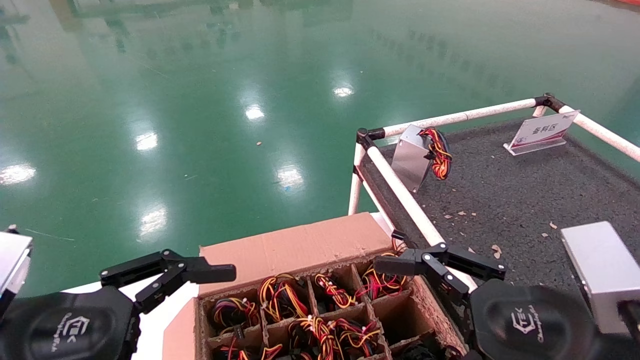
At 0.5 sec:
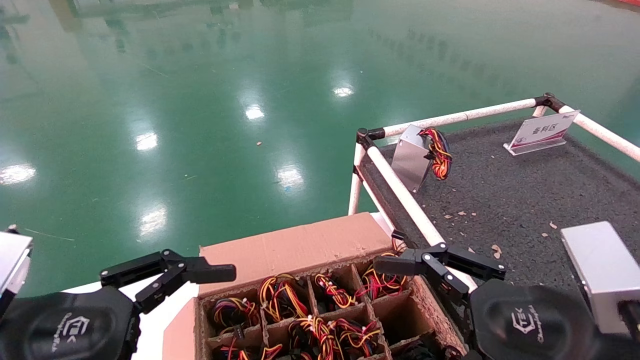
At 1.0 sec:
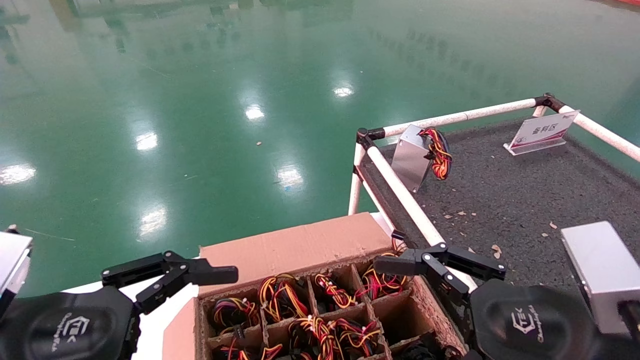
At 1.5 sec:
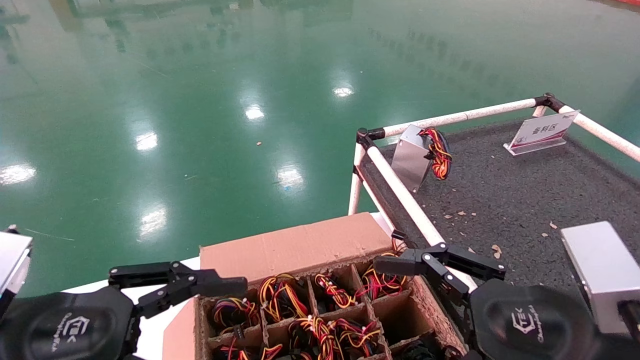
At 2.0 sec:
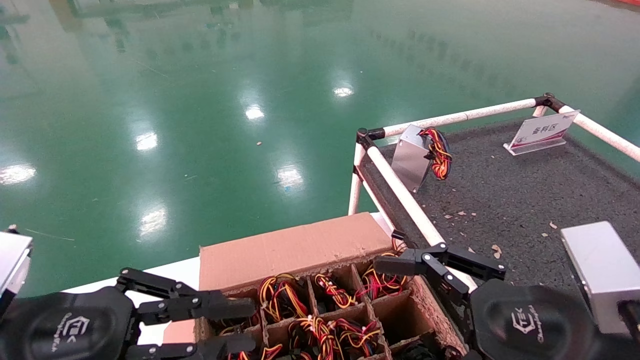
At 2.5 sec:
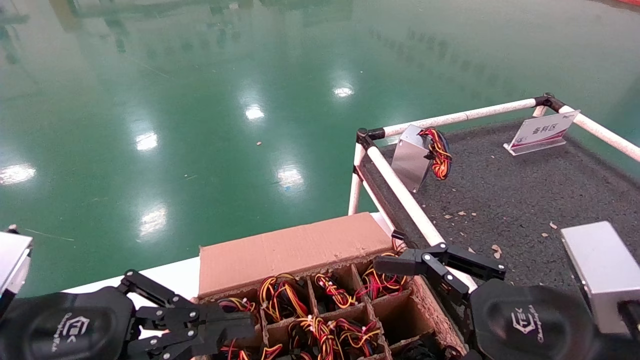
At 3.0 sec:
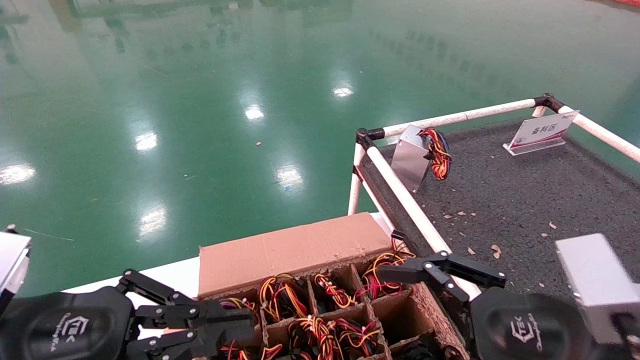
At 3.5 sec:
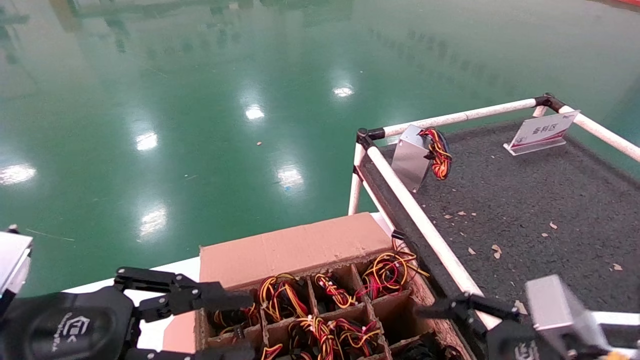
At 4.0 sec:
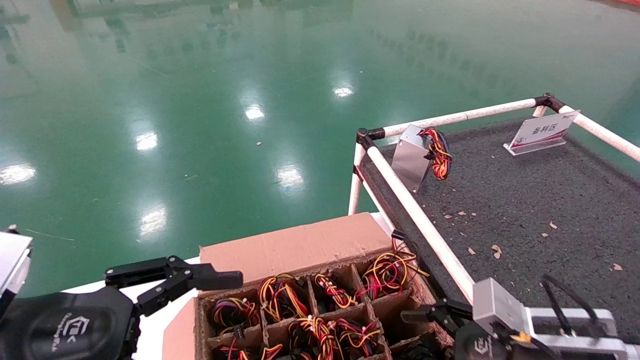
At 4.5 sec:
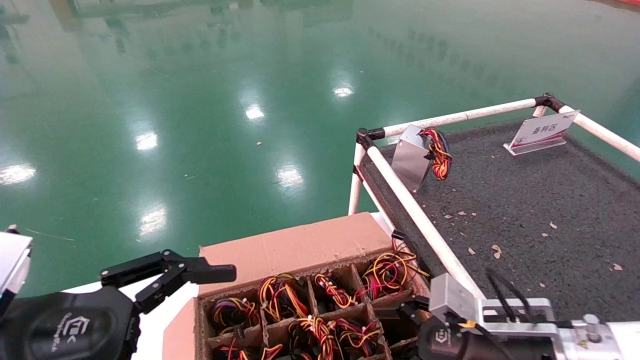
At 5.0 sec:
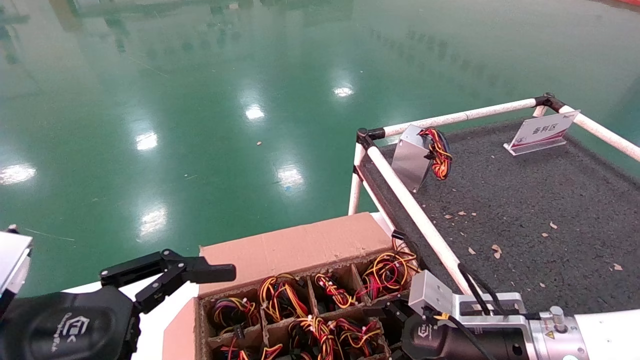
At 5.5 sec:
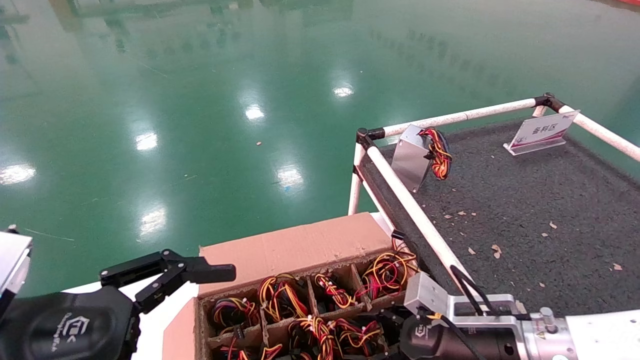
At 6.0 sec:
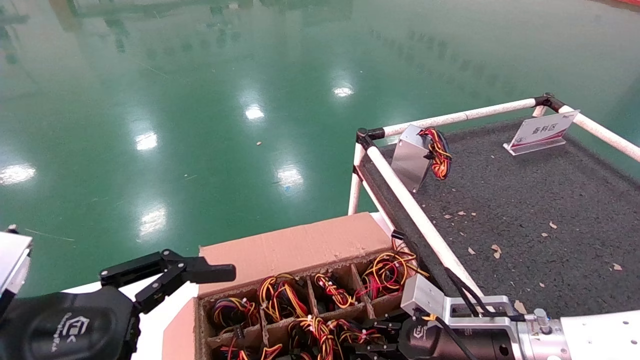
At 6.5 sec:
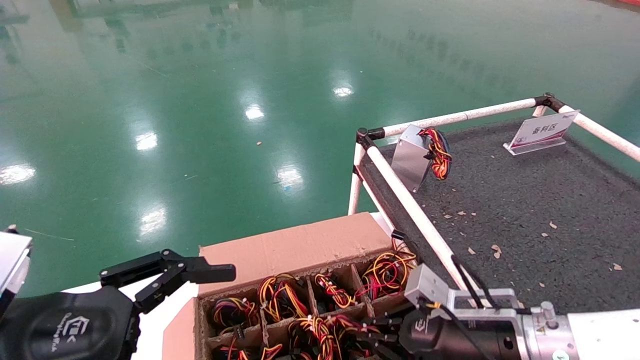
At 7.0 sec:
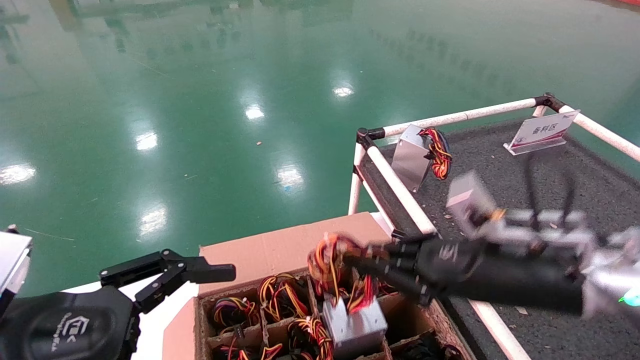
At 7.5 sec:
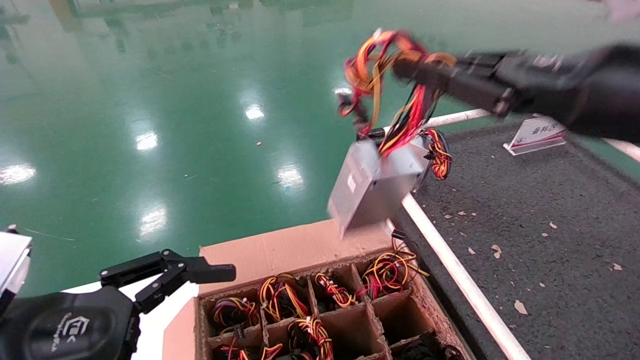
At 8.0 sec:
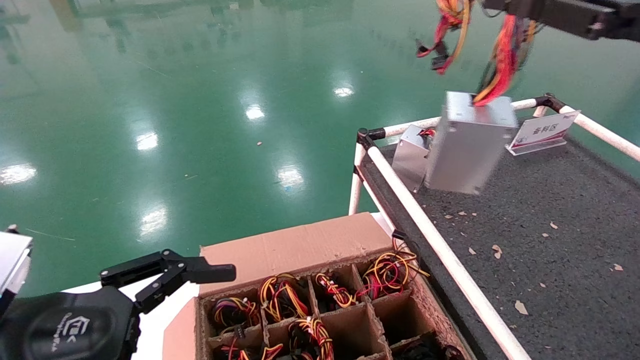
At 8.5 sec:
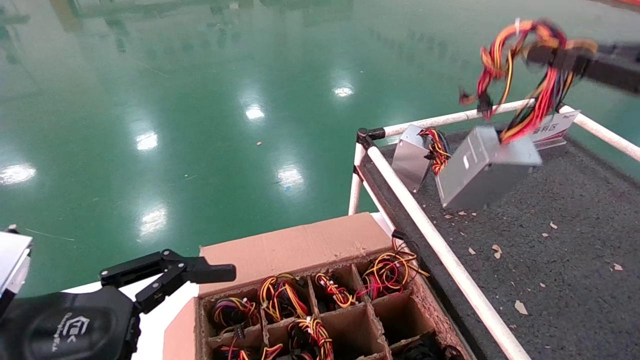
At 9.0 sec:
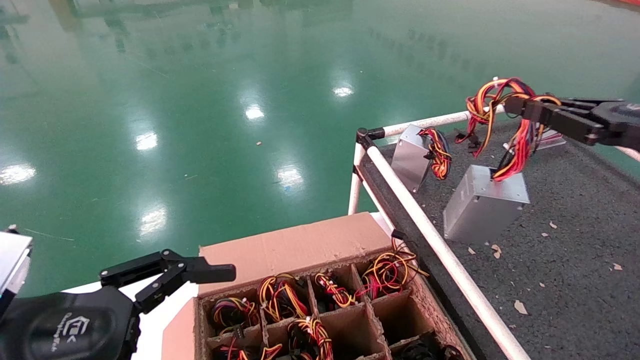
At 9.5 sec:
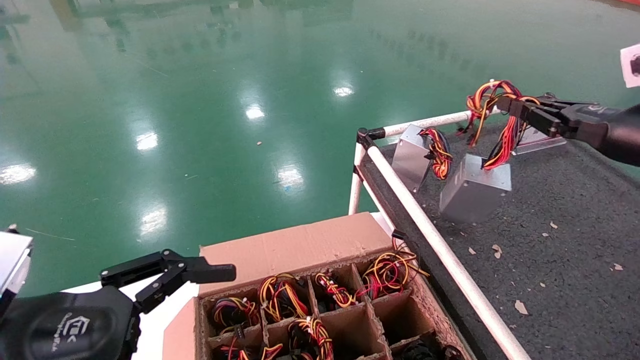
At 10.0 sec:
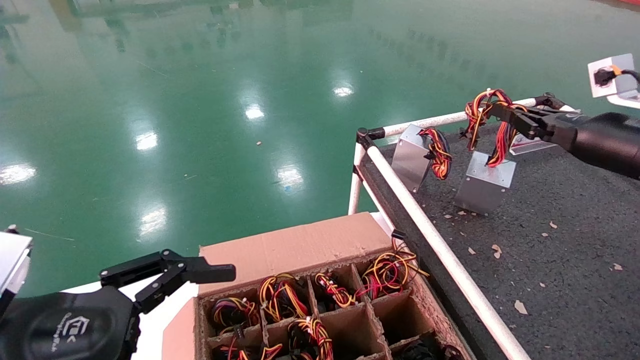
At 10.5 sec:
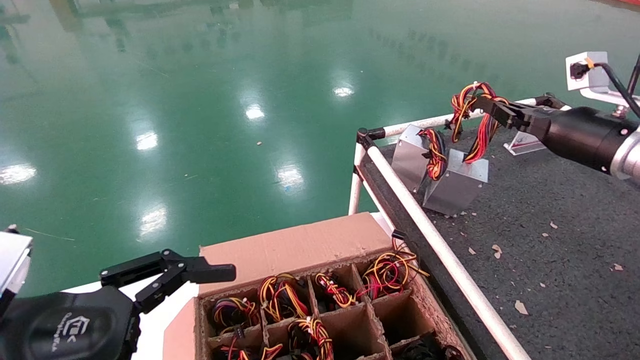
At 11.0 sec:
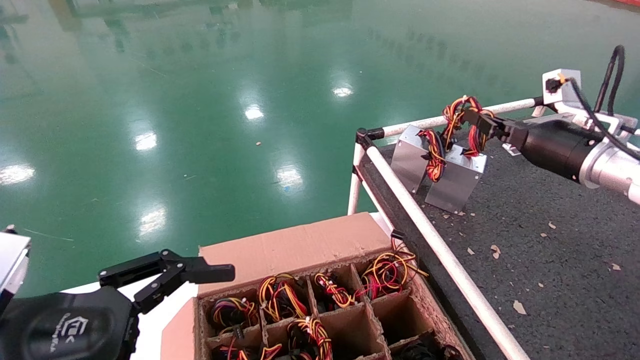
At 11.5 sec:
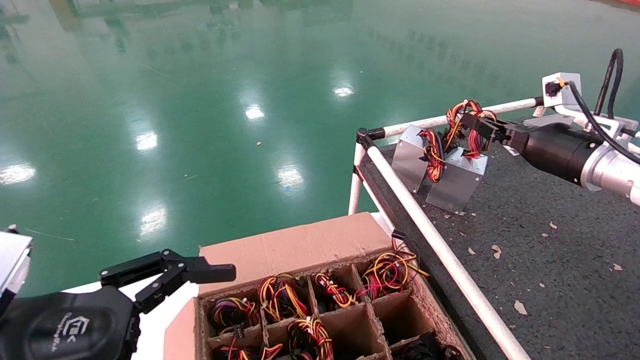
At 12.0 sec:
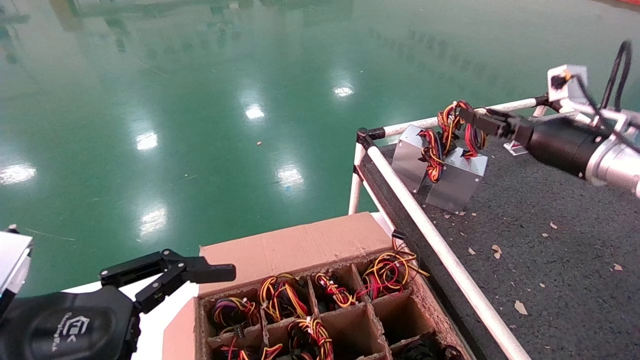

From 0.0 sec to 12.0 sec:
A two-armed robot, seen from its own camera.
Step, from 3.5 sec to 6.0 sec: Grab and lift the power supply from the large box.
Step, from 6.5 sec to 11.5 sec: Place the power supply on the operating table.
From 0.0 sec to 2.0 sec: The left gripper closes up.
From 2.0 sec to 4.0 sec: The right gripper heads downward and forward, covering approximately 10 cm. The left gripper opens.
From 4.0 sec to 6.0 sec: The right gripper is displaced forward by approximately 5 cm, and closes up.
From 6.0 sec to 8.0 sec: The right gripper heads upward, covering about 35 cm.
From 8.0 sec to 10.0 sec: The right gripper heads forward and downward, covering some 15 cm.
From 10.0 sec to 12.0 sec: The right gripper moves approximately 5 cm, and opens.

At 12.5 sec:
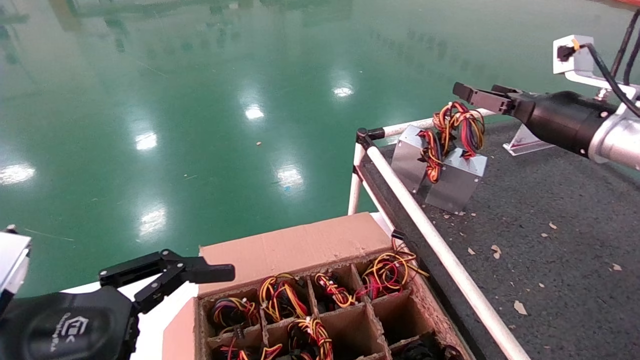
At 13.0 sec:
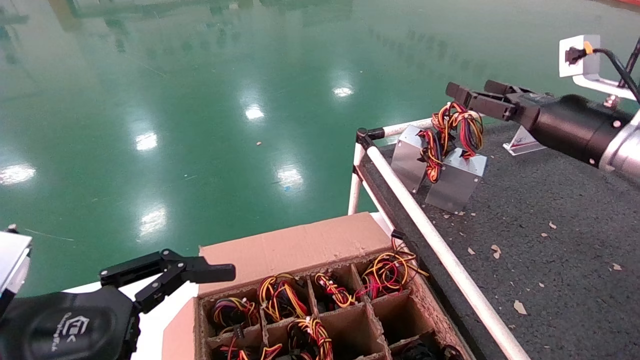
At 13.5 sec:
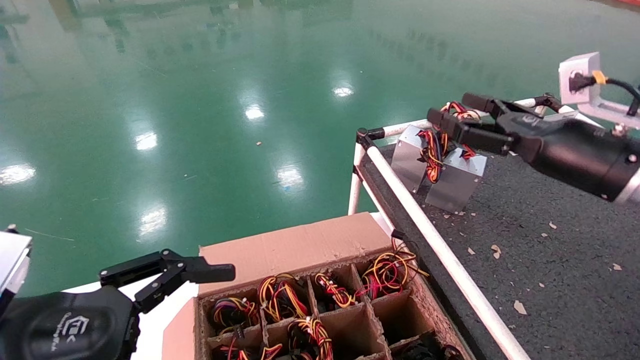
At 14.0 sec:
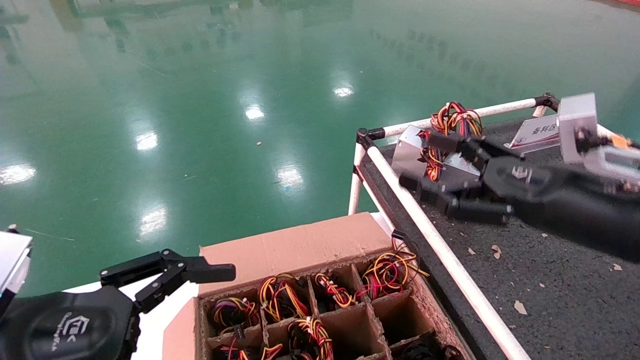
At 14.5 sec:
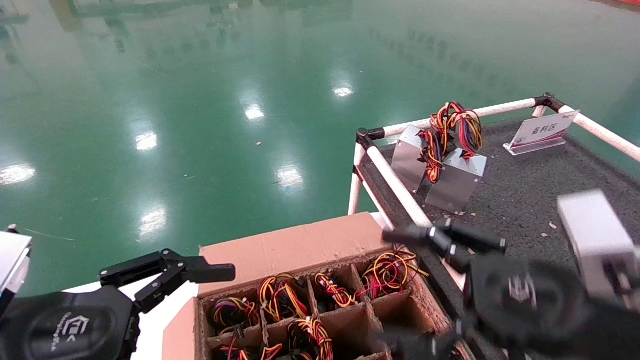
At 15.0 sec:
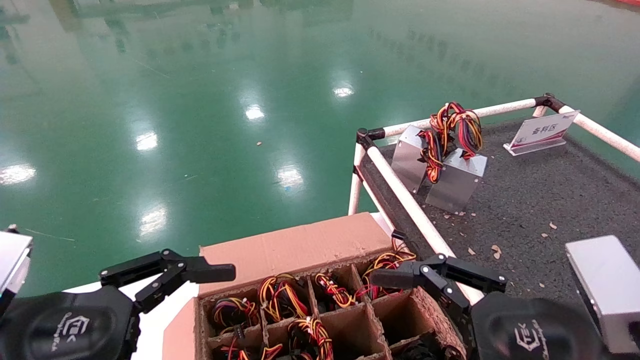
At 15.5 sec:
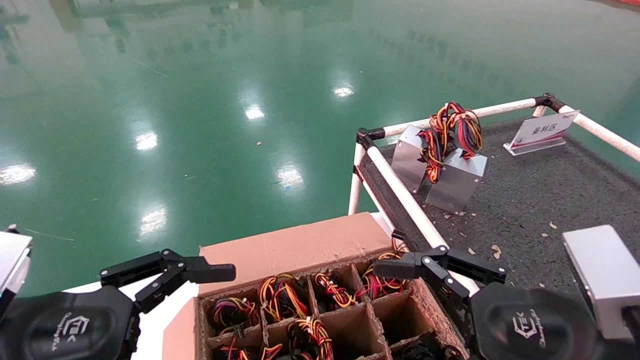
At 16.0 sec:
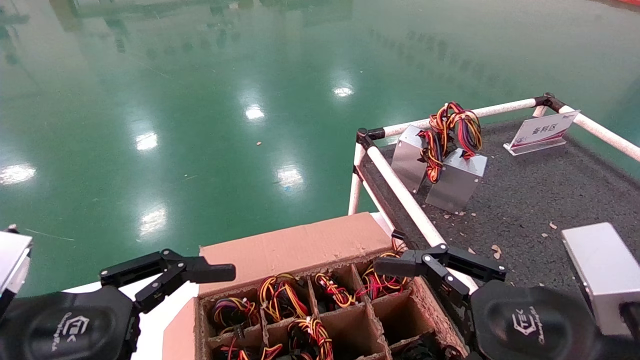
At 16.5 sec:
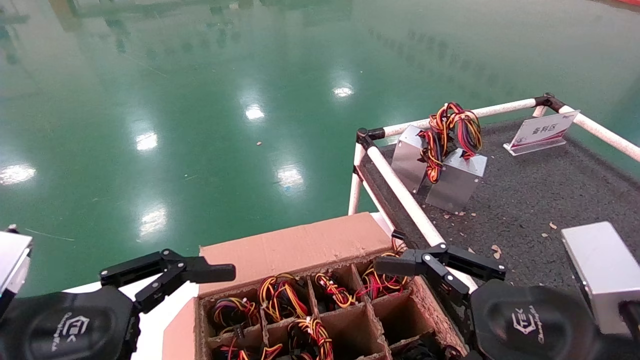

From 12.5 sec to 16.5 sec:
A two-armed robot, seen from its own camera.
From 12.5 sec to 14.5 sec: The right gripper shifts roughly 25 cm backward, downward and to the left.
From 14.5 sec to 16.5 sec: There are only small adjustments of the grippers.
